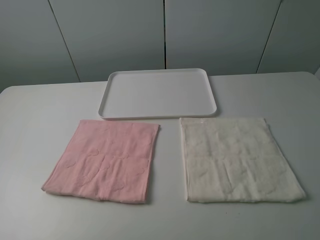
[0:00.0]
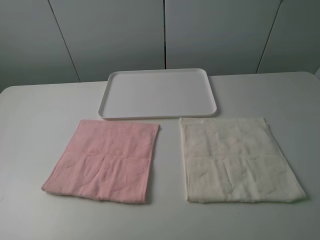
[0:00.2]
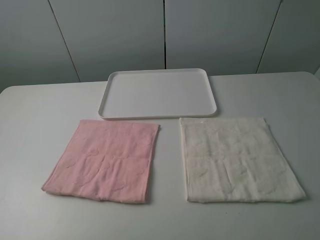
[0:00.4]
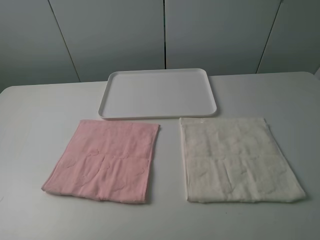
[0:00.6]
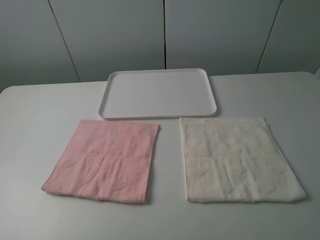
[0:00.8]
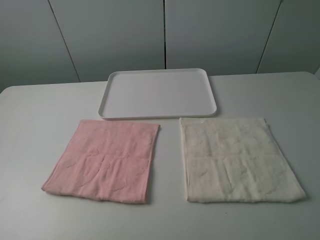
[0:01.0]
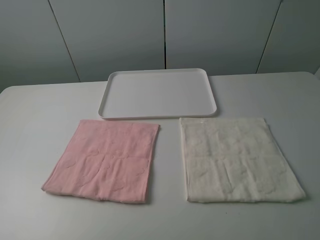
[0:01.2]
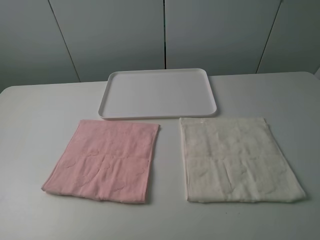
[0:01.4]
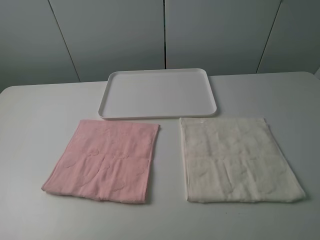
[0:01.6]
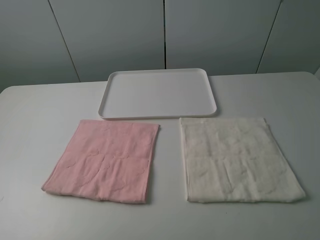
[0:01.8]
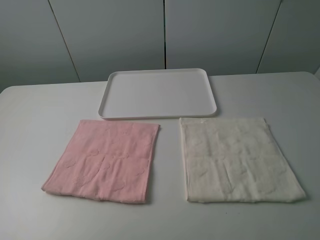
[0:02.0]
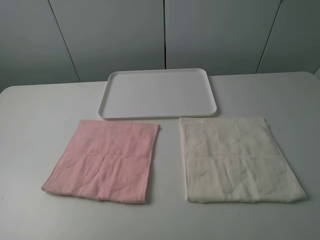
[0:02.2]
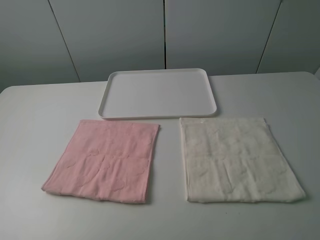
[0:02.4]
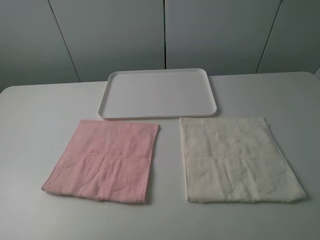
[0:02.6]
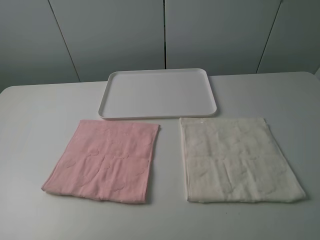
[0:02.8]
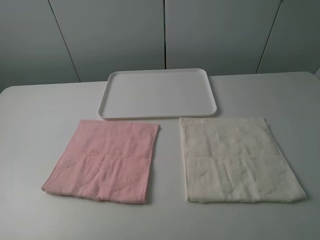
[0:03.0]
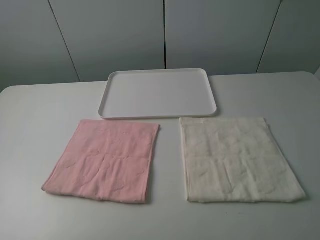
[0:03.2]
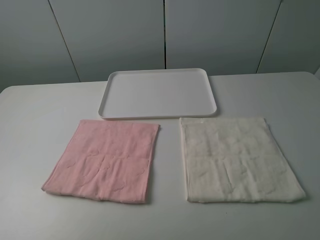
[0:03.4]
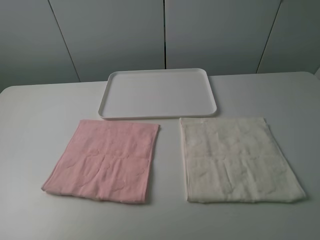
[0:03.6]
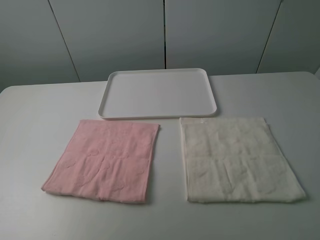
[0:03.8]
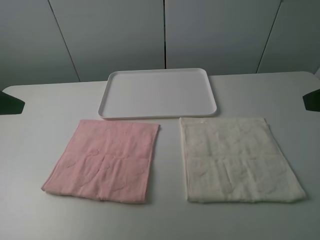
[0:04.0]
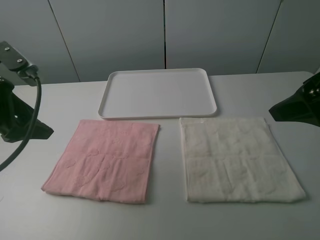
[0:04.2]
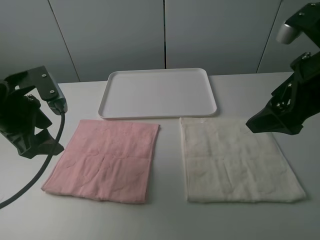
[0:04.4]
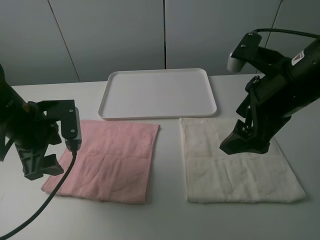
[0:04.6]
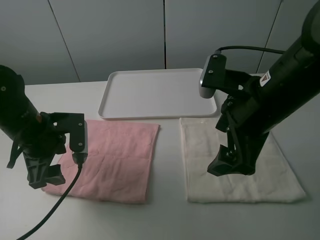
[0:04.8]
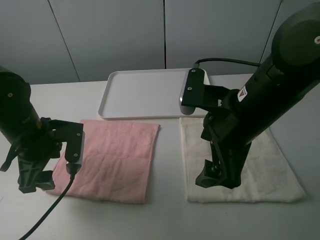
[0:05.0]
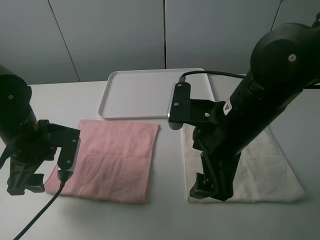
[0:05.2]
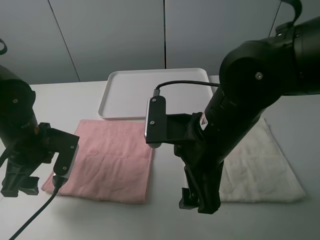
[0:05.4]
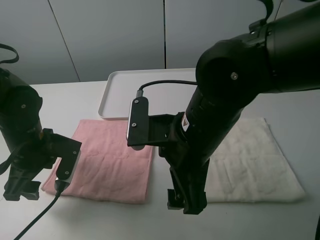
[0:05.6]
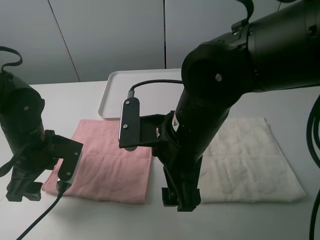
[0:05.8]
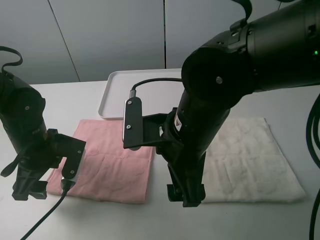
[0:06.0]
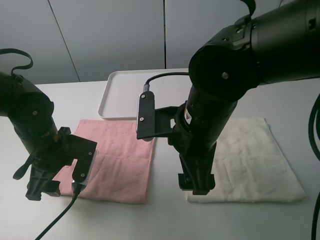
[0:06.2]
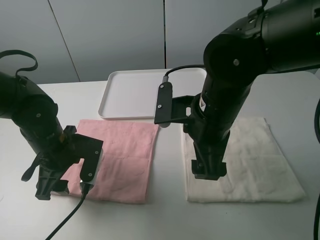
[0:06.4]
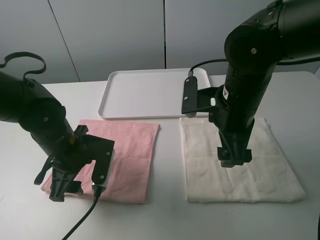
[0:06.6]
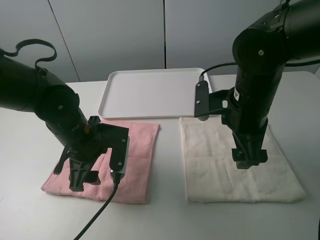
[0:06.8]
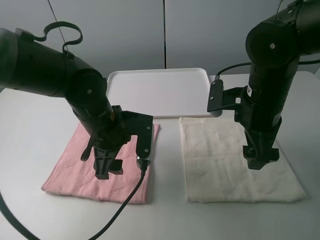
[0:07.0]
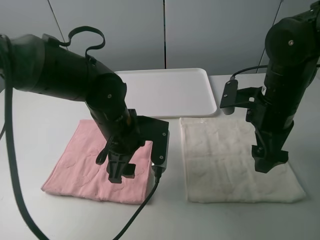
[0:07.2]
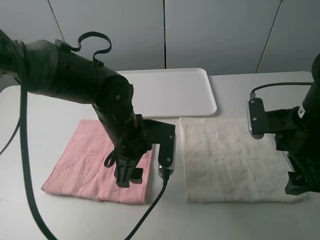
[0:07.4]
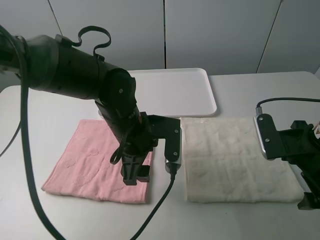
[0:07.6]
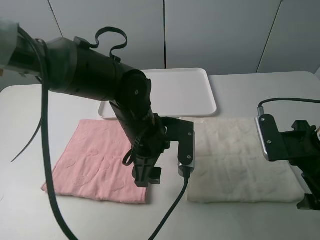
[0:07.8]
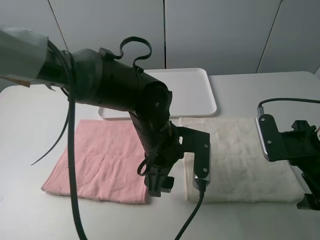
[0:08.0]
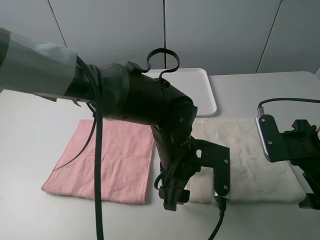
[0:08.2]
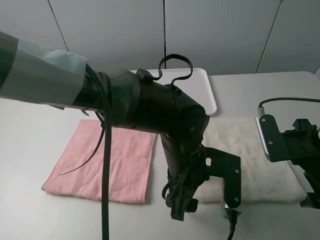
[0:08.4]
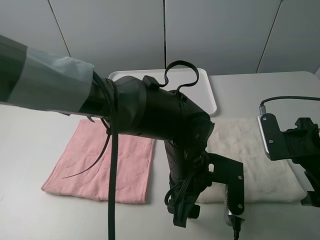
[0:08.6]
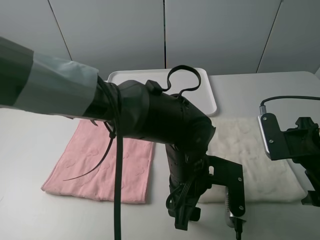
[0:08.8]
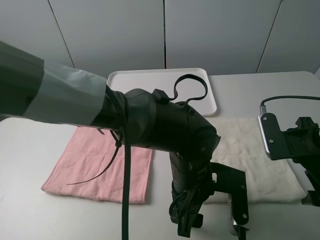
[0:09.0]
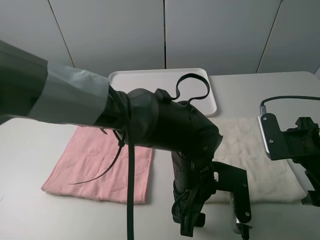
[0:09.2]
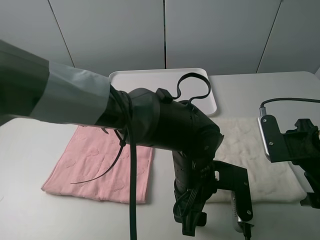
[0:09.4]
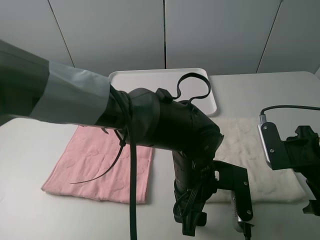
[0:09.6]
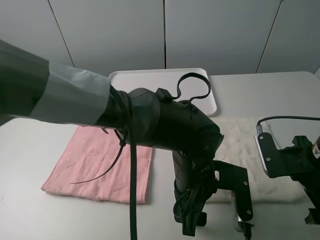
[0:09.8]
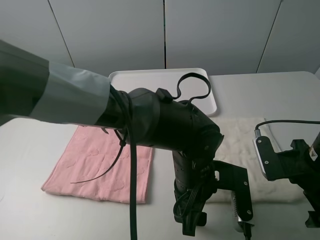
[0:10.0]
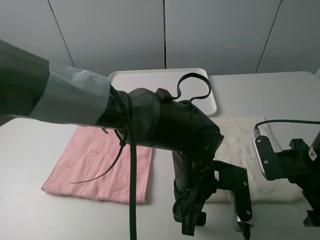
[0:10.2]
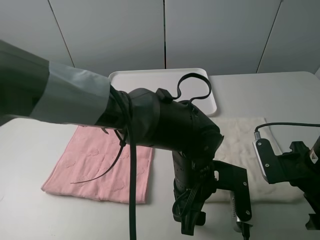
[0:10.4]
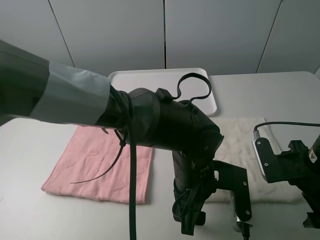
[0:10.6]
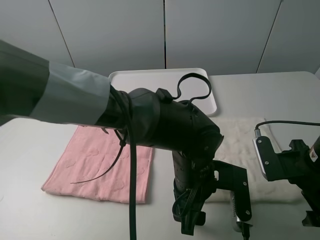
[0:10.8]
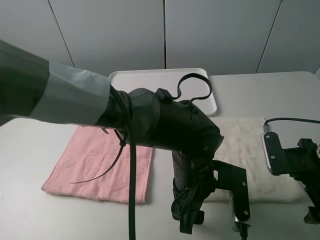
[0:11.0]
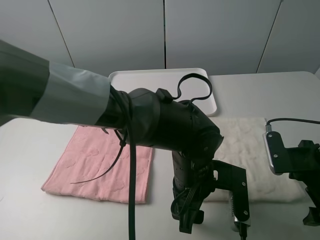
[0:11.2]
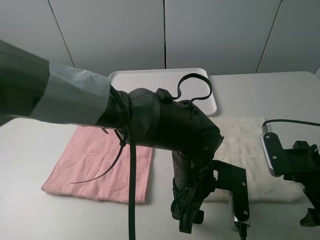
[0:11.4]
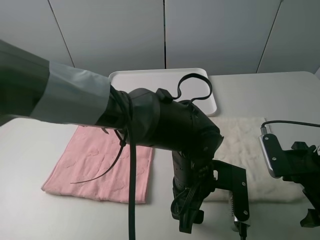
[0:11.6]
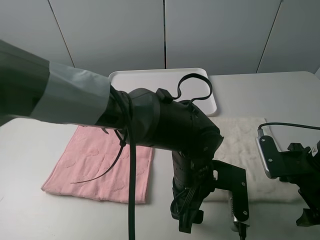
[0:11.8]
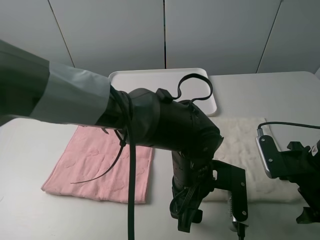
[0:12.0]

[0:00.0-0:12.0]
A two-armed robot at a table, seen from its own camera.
Task of the whole recording: fold one of the towels by two grippers and place it on the tray,then fold another towel by two grippers and place it on the folded towel.
0:00.0 to 0:03.0: Both grippers stay about where they are.
0:03.0 to 0:04.4: Both grippers move forward, about 20 cm.
0:04.4 to 0:06.0: The right gripper heads to the left and downward, covering approximately 20 cm; the left gripper shifts roughly 10 cm downward.
0:06.0 to 0:07.6: Both grippers travel together to the right, about 20 cm.
0:07.6 to 0:09.0: The left gripper goes some 15 cm to the right and backward.
0:09.0 to 0:12.0: There are only small adjustments of the grippers.

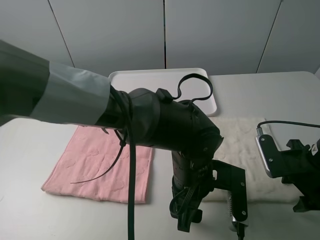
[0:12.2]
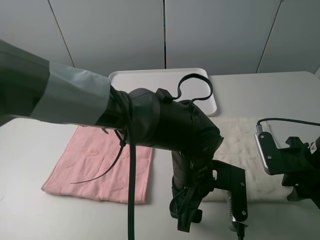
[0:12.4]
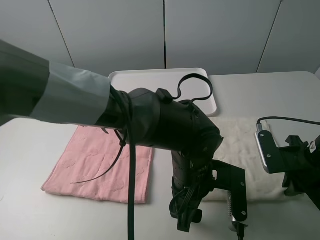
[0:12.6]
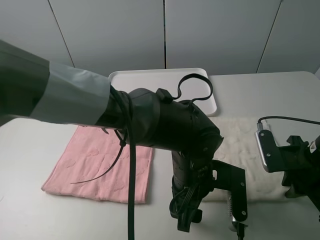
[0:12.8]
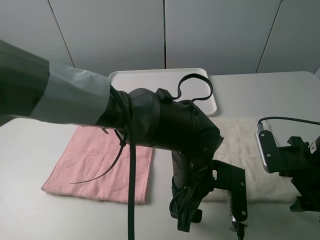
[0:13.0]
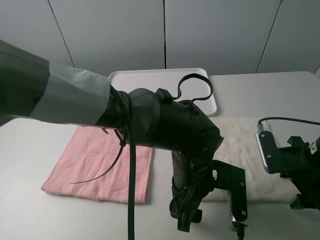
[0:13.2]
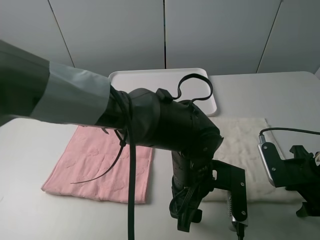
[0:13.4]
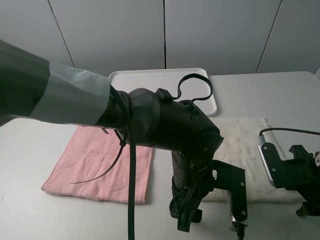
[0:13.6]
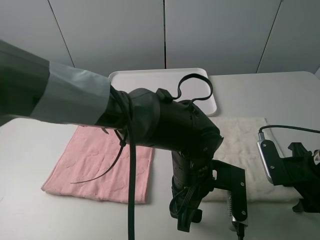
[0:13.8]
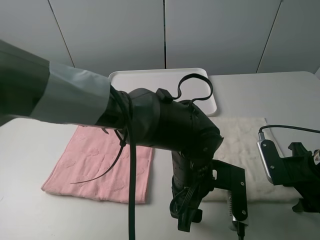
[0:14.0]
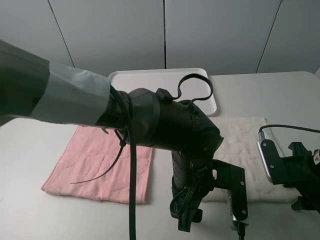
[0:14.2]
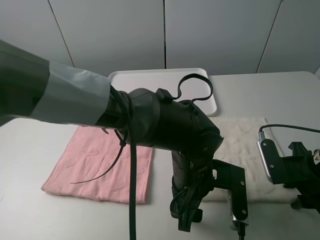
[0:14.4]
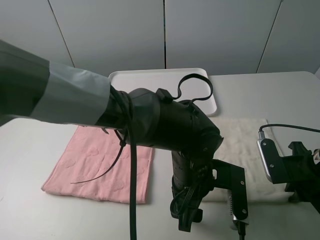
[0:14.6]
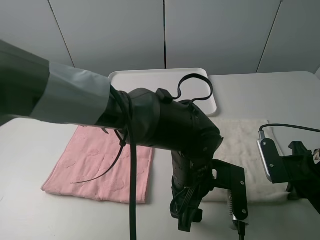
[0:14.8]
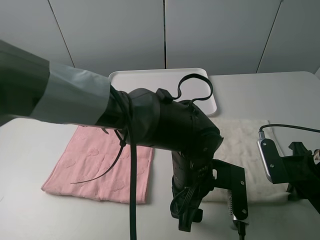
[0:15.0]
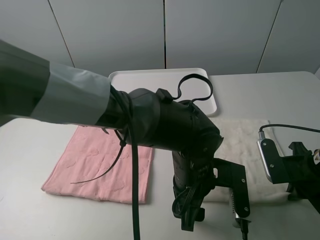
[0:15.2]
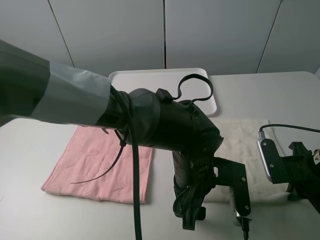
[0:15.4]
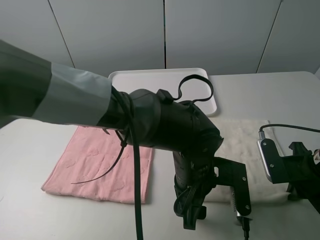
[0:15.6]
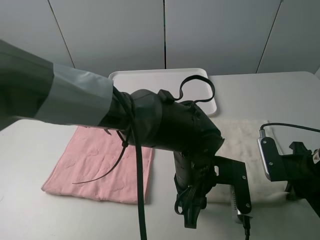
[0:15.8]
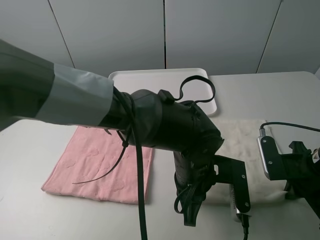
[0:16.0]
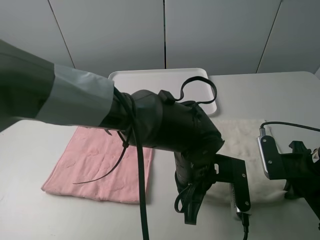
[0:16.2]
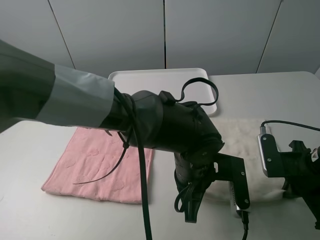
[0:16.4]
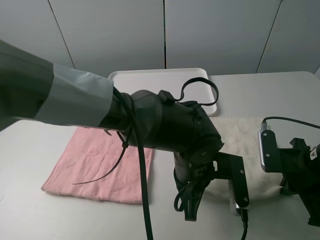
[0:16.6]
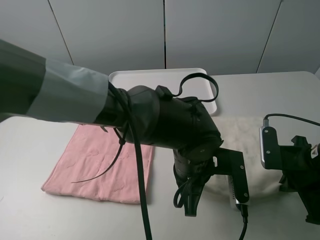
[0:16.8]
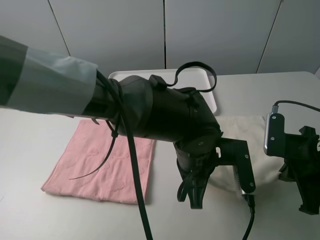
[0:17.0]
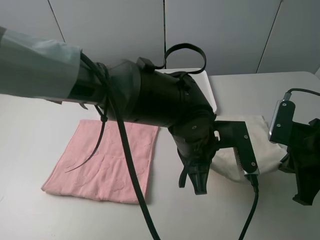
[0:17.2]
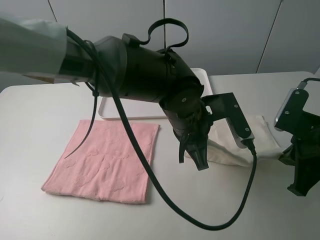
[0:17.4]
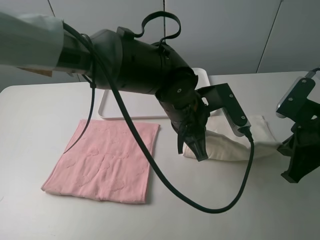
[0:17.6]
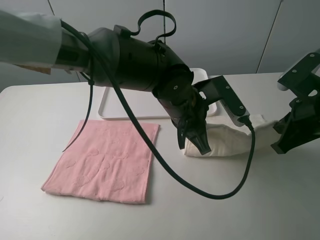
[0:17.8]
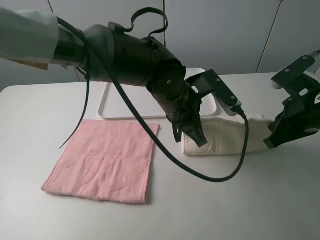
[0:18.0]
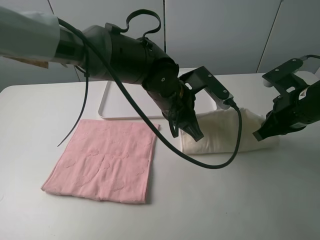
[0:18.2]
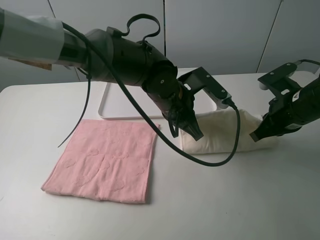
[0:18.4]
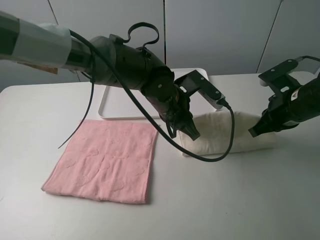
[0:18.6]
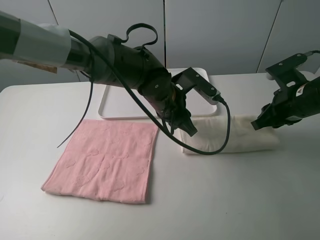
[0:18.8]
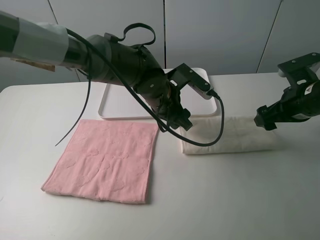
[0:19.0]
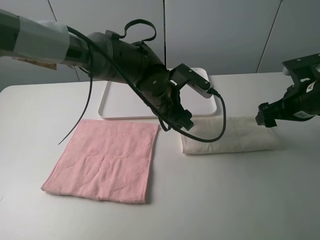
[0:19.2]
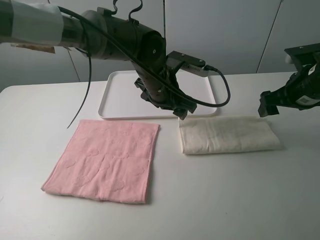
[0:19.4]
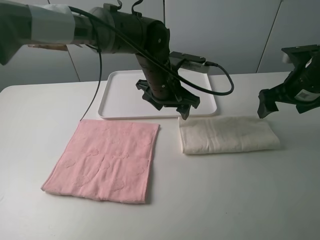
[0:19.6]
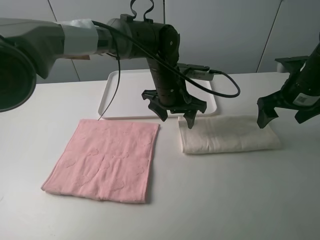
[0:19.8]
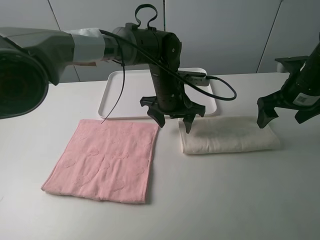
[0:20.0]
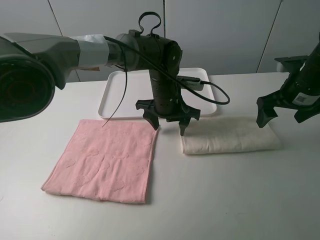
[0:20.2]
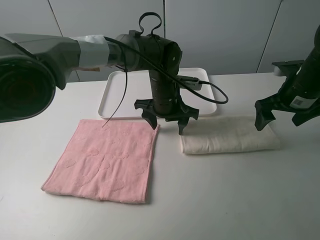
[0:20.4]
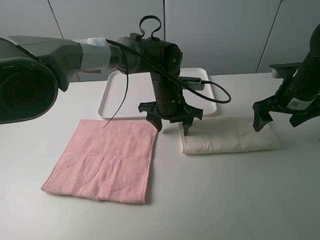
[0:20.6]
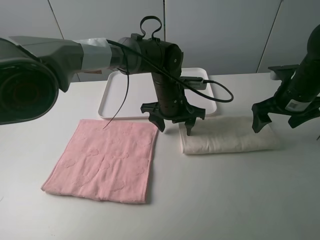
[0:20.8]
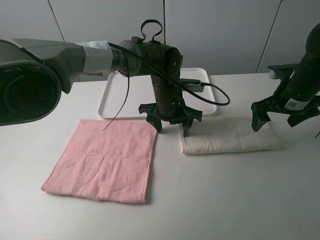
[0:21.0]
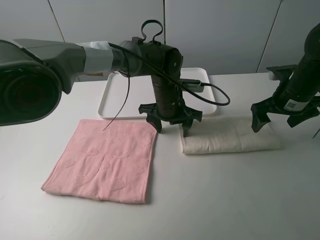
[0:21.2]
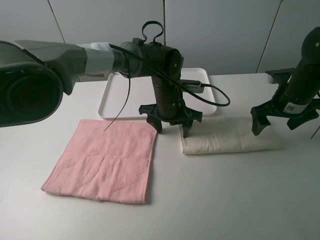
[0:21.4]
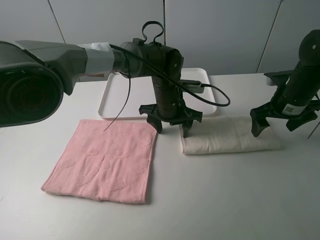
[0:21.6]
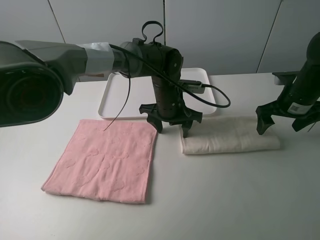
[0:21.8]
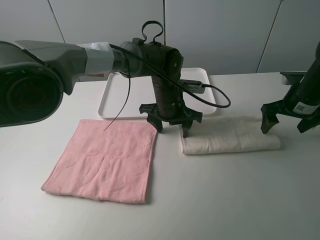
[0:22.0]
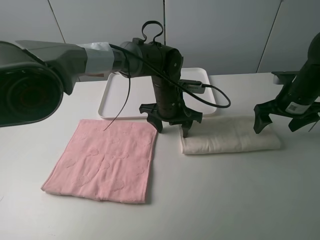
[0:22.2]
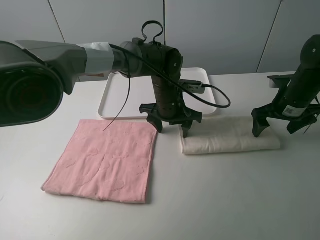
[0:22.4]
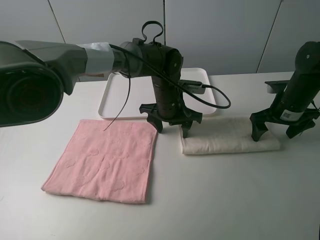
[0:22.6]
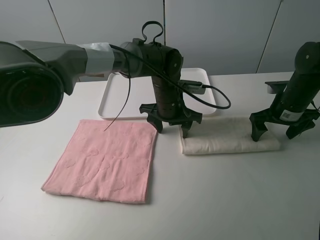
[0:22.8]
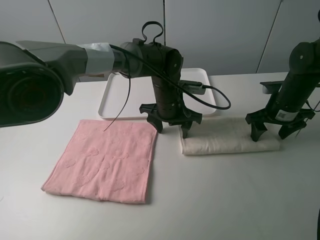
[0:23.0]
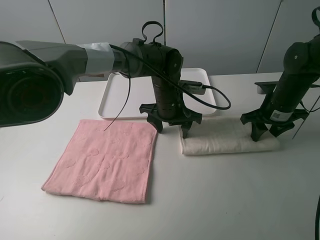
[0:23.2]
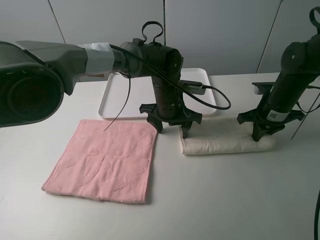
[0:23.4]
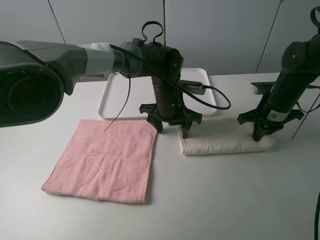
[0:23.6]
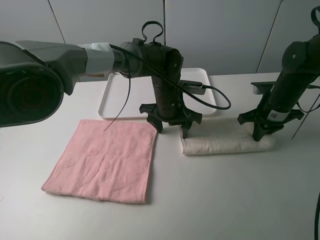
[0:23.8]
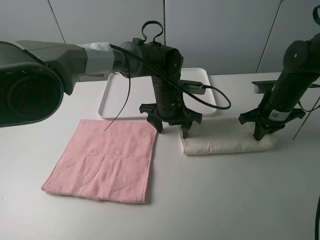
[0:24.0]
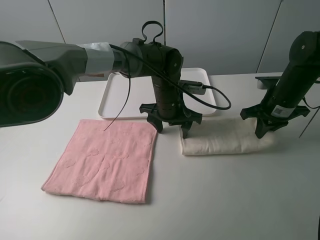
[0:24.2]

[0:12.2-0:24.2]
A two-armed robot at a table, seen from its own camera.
Task of the whole recording: fold one of the towels by two grippers and place it on the tray,then fold another towel by two grippers and place it on the folded towel.
Step, 0:12.2 to 0:16.4: Grasp the white towel with the left gripper.
Step, 0:16.6 to 0:19.0: Fold the white towel upwards with the left gripper.
Step, 0:19.2 to 0:21.6: Press the white towel with the left gripper.
Step, 0:21.8 to 0:23.6: Grasp the white towel with the right gripper.
0:12.2 to 0:13.8: The right gripper closes and opens again.
0:13.8 to 0:15.2: The right gripper closes.
0:15.2 to 0:16.6: The left gripper closes its fingers.
0:16.6 to 0:18.2: Both grippers move forward and upward, some 10 cm.
0:18.2 to 0:19.8: The two grippers go roughly 5 cm forward. The left gripper opens its fingers. The right gripper opens its fingers.
0:19.8 to 0:21.2: The grippers move only a little.
0:21.2 to 0:22.6: The grippers move only a little.
0:22.6 to 0:24.2: The right gripper closes.
